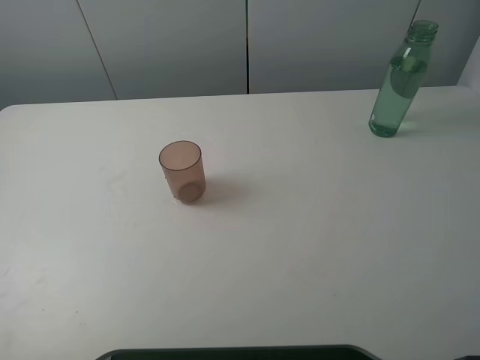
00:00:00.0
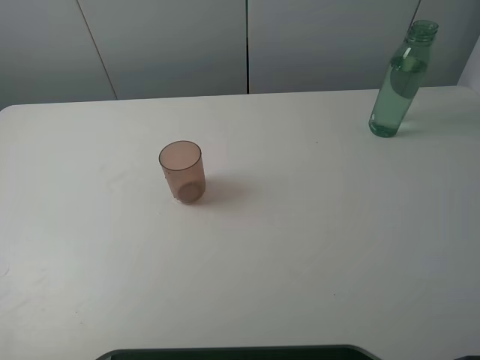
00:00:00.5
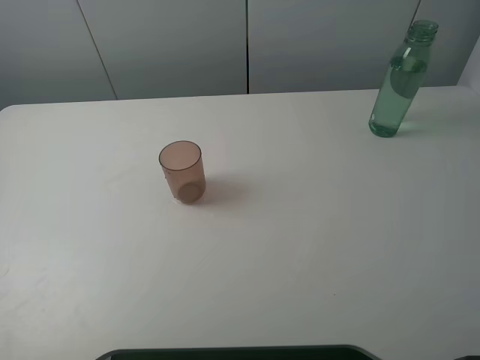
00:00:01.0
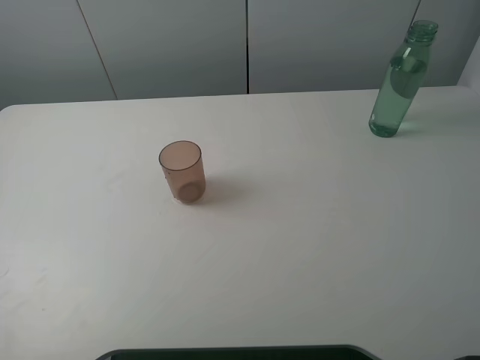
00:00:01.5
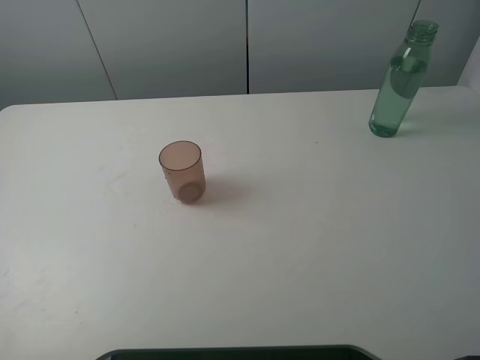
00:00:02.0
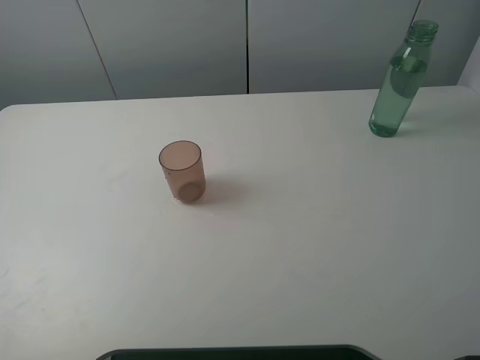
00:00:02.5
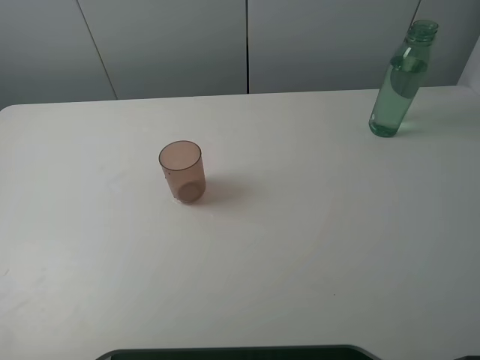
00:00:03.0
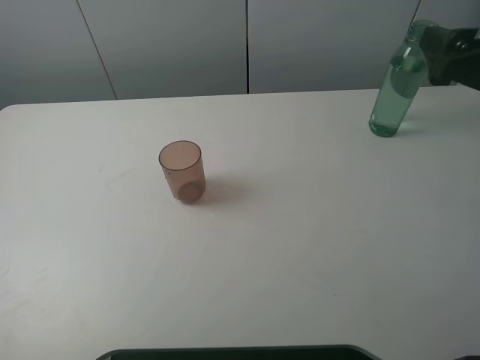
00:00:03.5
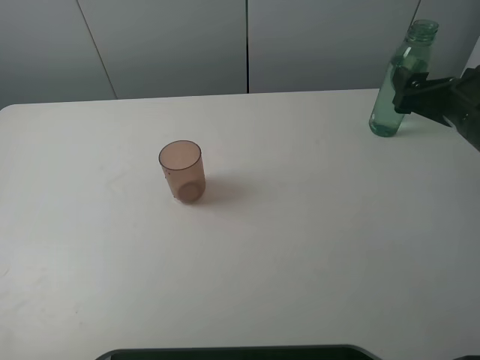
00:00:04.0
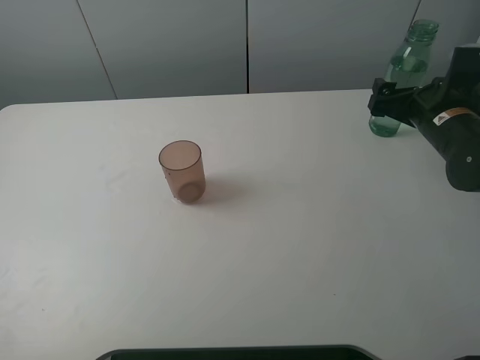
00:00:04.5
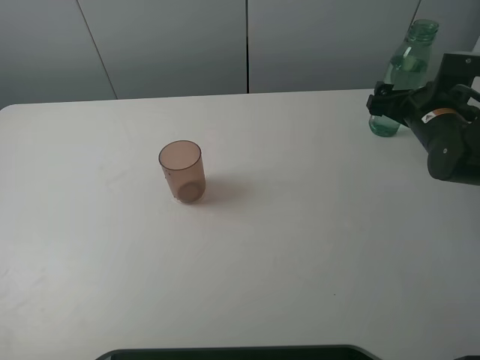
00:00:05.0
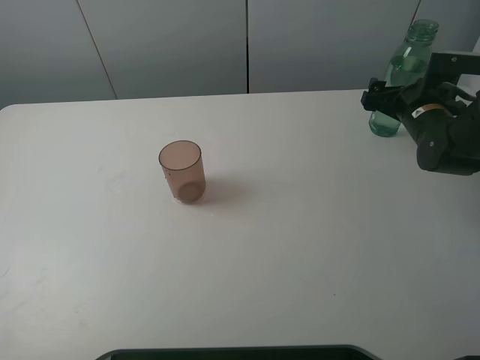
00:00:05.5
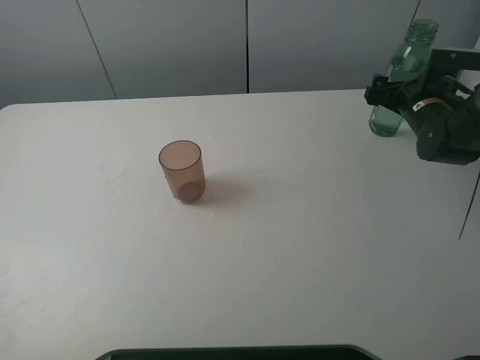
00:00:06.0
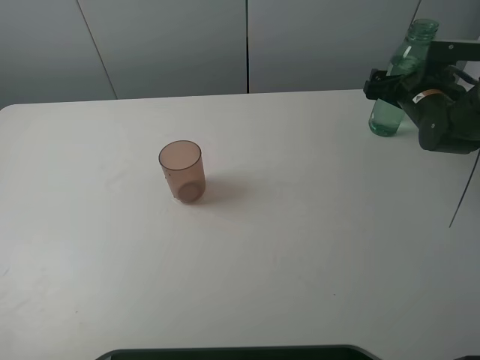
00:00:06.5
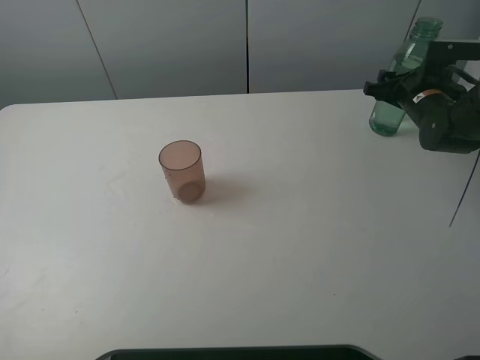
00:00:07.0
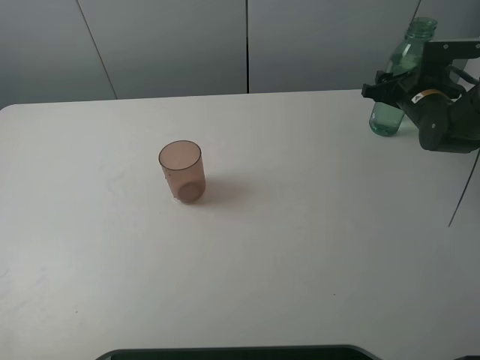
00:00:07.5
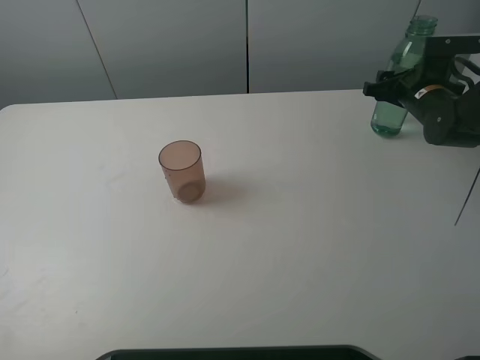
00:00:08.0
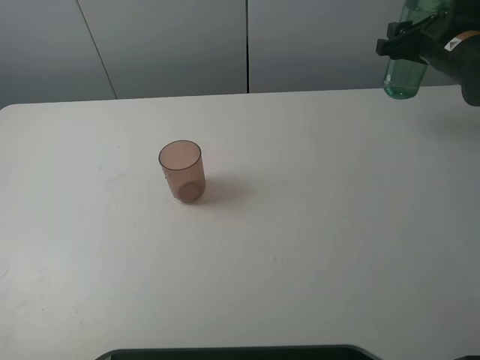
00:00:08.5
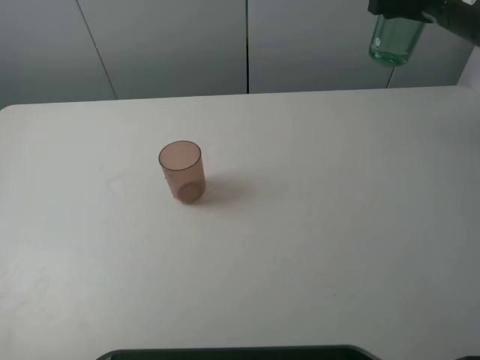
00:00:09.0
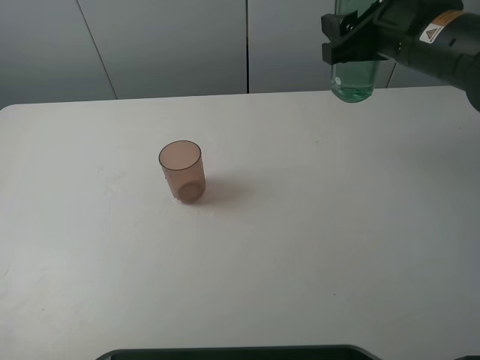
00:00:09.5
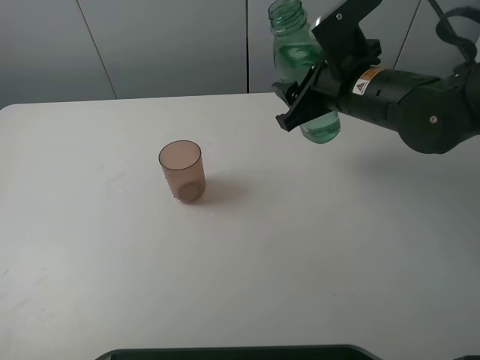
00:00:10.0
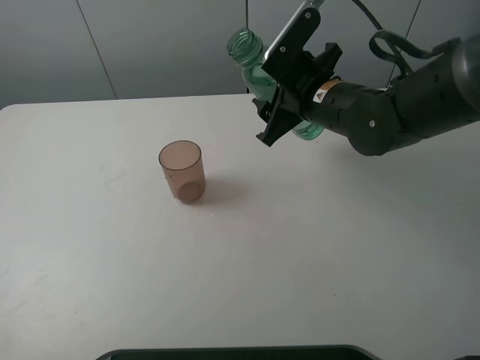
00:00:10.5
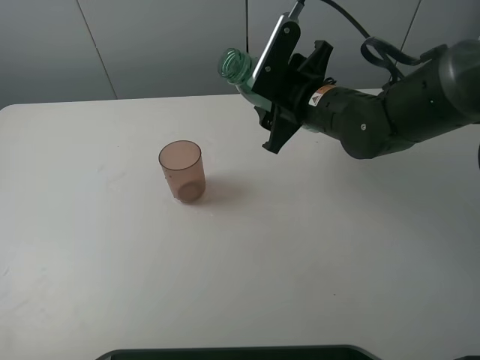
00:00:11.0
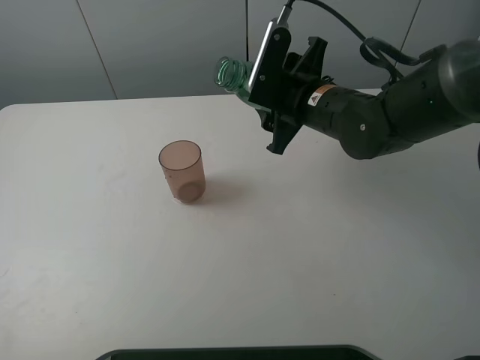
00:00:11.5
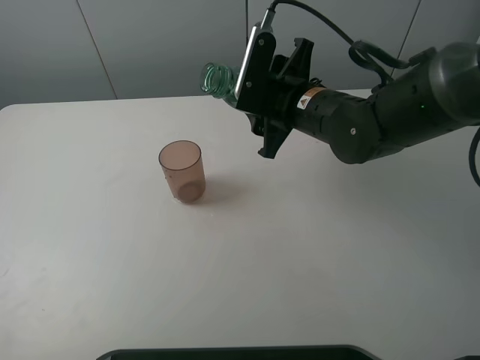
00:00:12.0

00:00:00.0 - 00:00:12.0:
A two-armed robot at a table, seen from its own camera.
Task of the whole recording: pick up the bottle filled with water and pour it into the pink cup.
Step, 00:00:00.0 - 00:00:06.5: Grasp the green bottle with the right gripper.
00:00:02.0 - 00:00:04.0: The right gripper heads forward and downward, covering approximately 30 cm.
00:00:04.0 - 00:00:06.0: The right gripper travels forward and downward by about 15 cm.
00:00:06.0 - 00:00:08.0: The right gripper closes up.
00:00:08.0 - 00:00:10.0: The right gripper moves to the left, backward and upward, approximately 20 cm.
00:00:10.0 - 00:00:12.0: The right gripper is displaced to the left by approximately 5 cm.

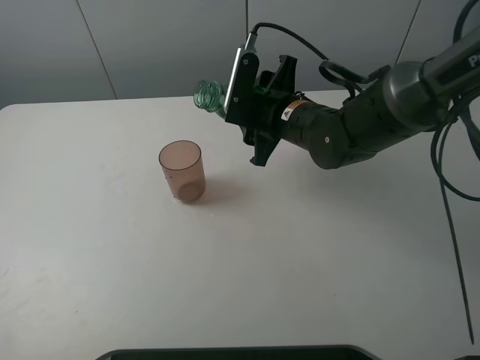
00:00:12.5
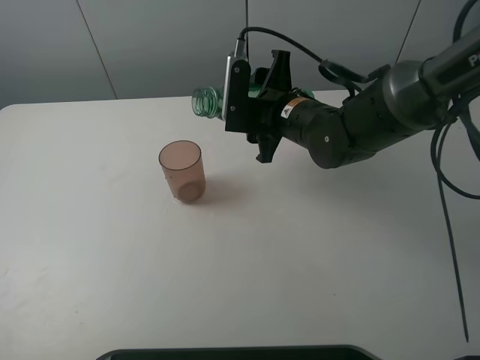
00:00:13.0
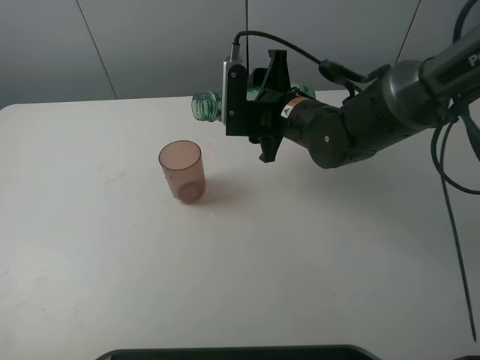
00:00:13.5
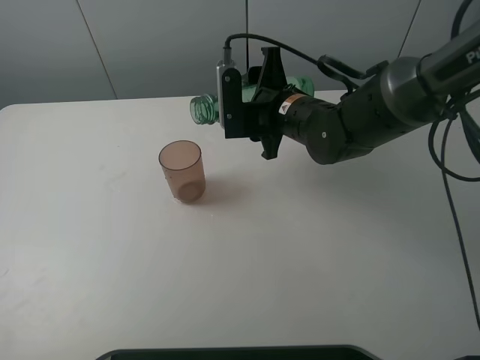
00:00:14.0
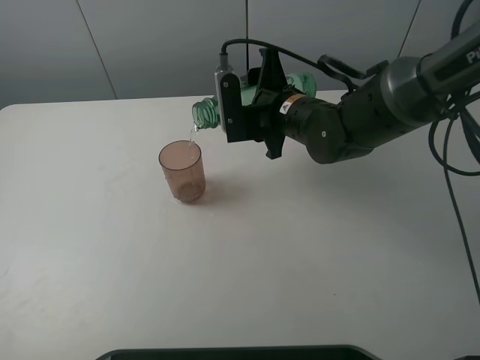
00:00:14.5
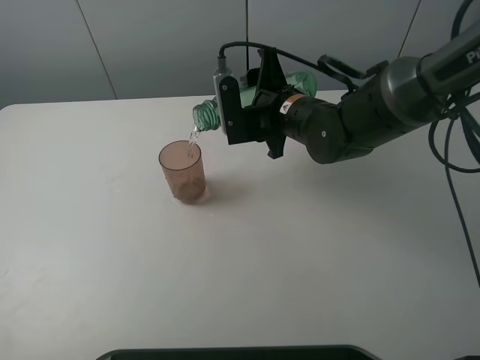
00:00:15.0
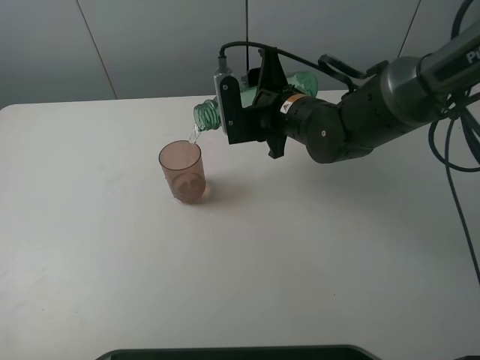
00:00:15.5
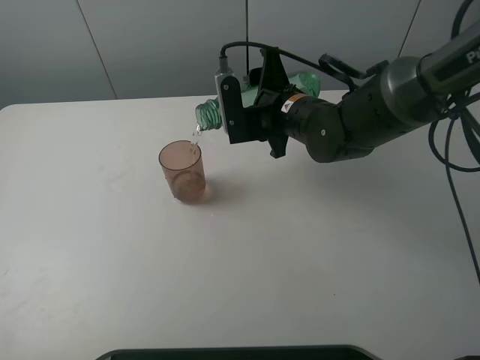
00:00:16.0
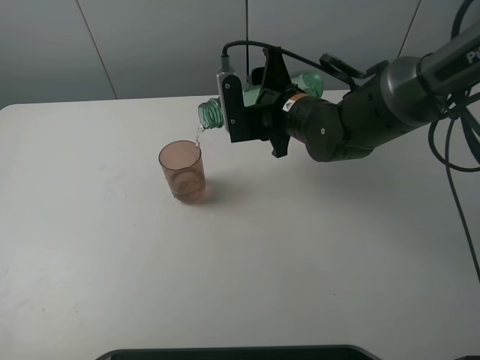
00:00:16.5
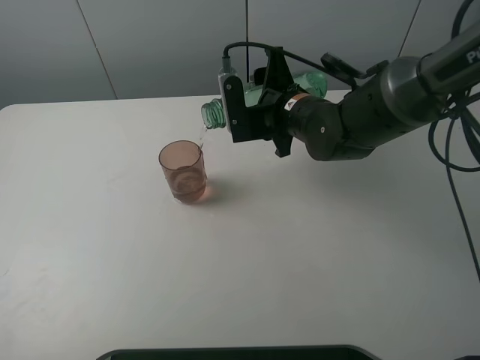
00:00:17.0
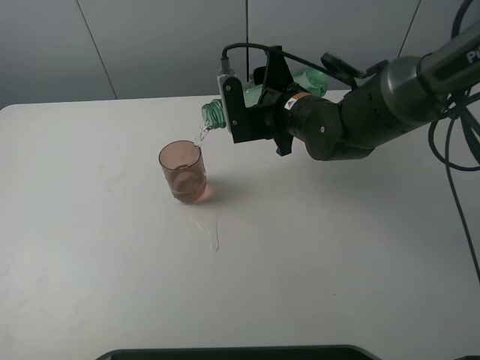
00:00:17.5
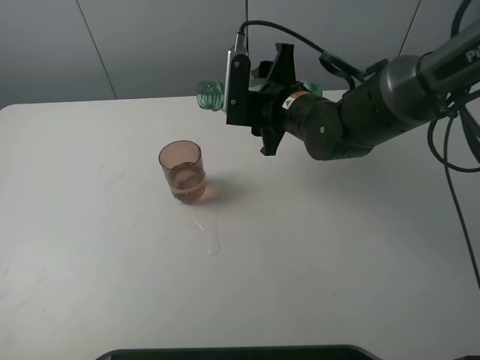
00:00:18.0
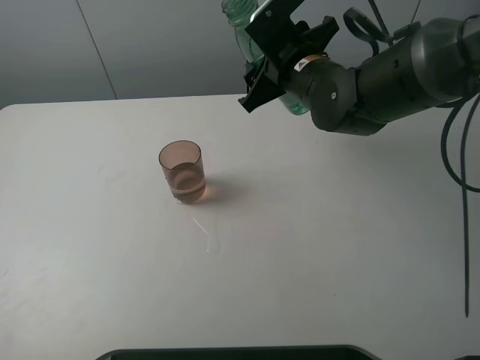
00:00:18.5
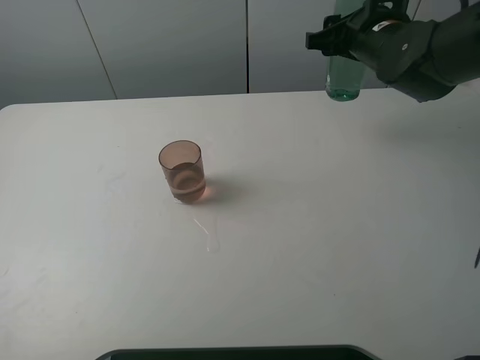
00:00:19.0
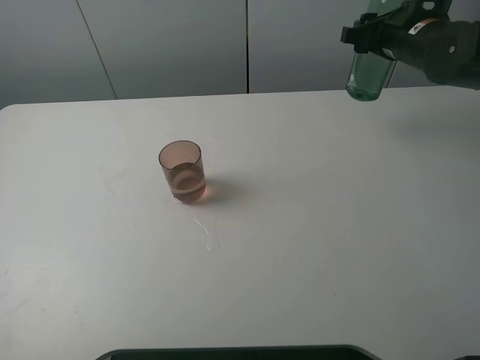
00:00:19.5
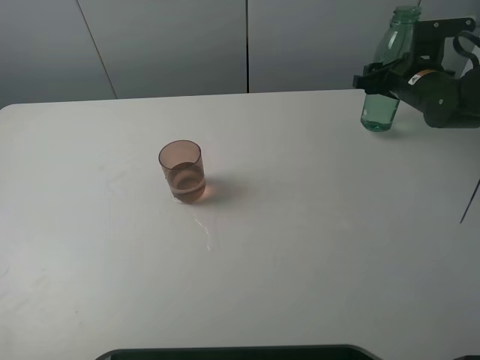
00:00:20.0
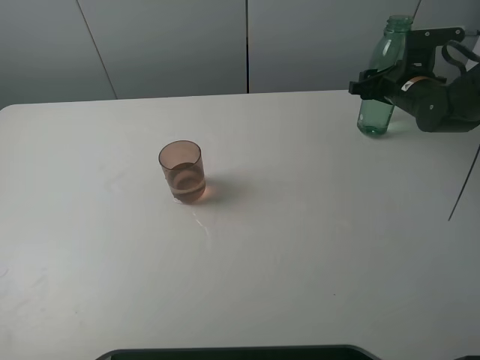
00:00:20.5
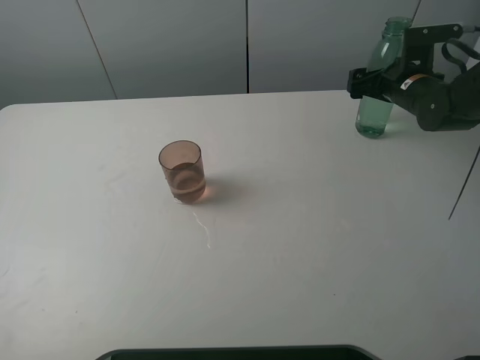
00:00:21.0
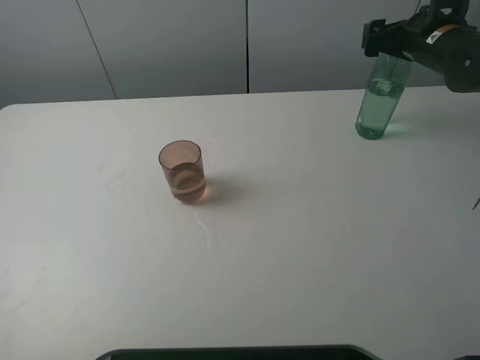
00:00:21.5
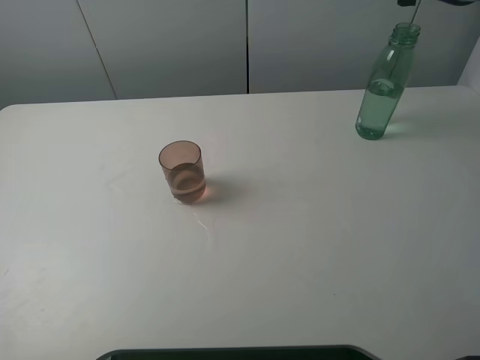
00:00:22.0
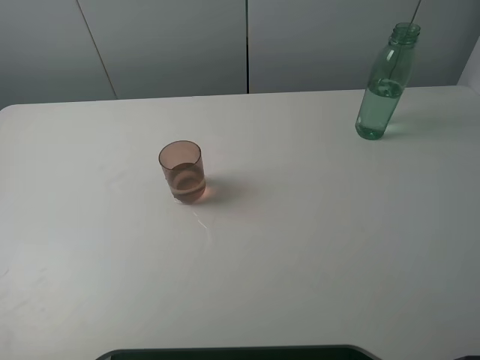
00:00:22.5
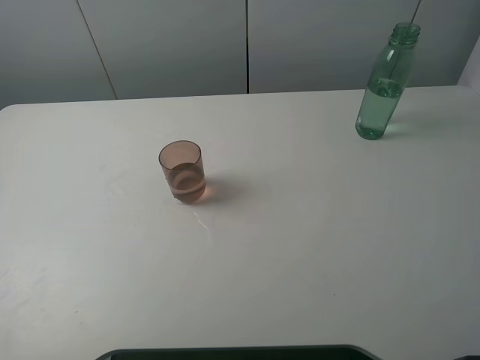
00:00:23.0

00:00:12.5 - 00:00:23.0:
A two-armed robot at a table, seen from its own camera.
Task of the whole recording: pick up the bottle filled with water and pour it into the pink cup.
Step, 00:00:12.5 - 00:00:18.0: Pour water from green bottle to pink cup with the right gripper.
Step, 00:00:18.5 - 00:00:21.5: Place the green bottle with the right gripper.
00:00:14.5 - 00:00:16.5: Both grippers stay about where they are.
00:00:16.5 - 00:00:19.0: The right gripper shifts about 15 cm to the right and upward.
00:00:19.0 - 00:00:21.0: The right gripper travels downward and to the right by some 15 cm, and opens its fingers.
00:00:21.0 - 00:00:23.0: The right gripper is displaced upward and backward by some 40 cm.

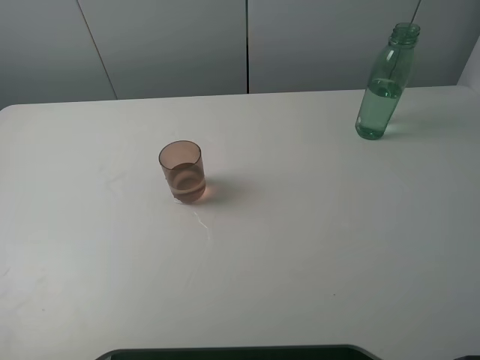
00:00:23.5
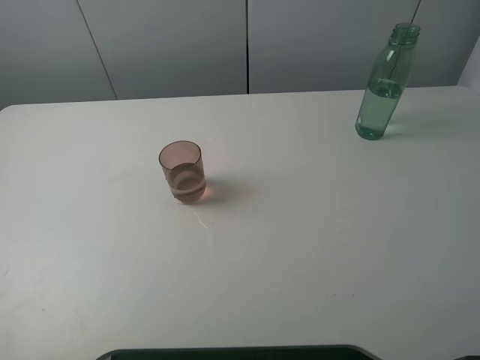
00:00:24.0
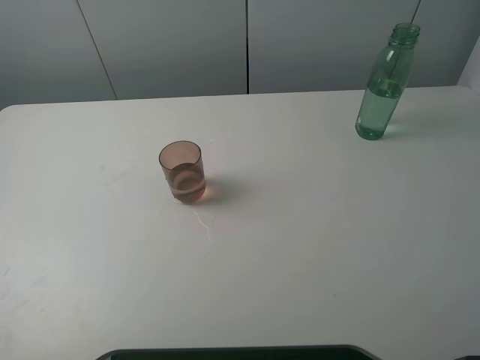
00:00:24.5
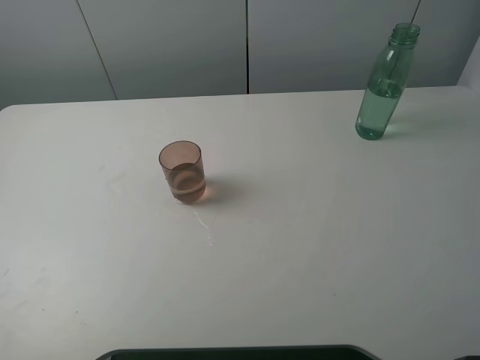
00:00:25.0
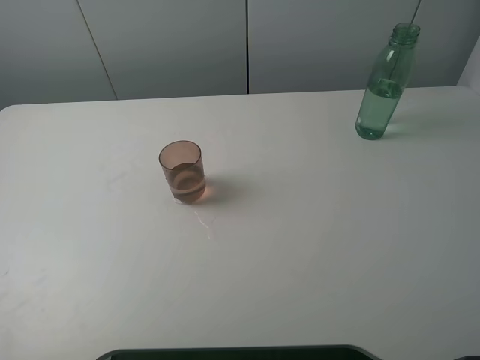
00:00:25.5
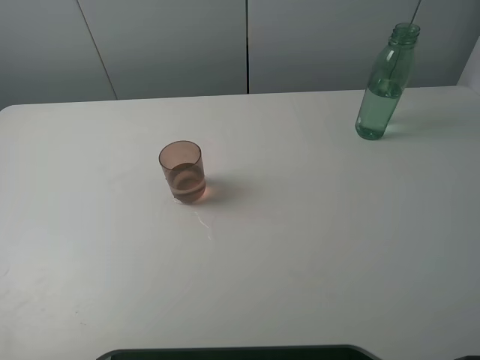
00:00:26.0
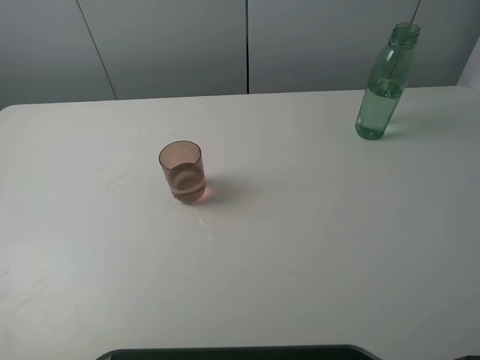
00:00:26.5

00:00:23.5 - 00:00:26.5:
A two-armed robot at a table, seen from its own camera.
Task of the whole recording: pick up the bottle filled with water and pour it into the pink cup.
00:00:25.0 - 00:00:26.5: Neither gripper changes place.
